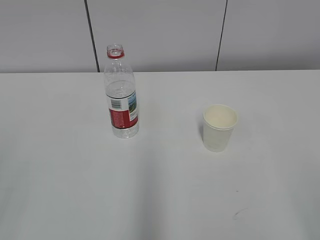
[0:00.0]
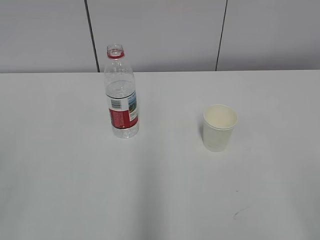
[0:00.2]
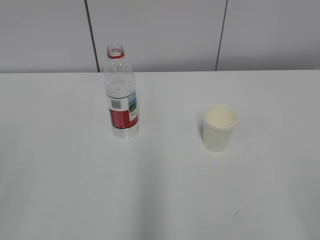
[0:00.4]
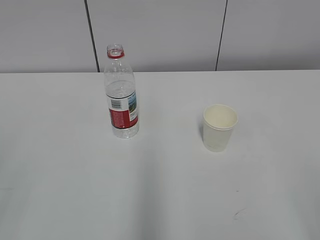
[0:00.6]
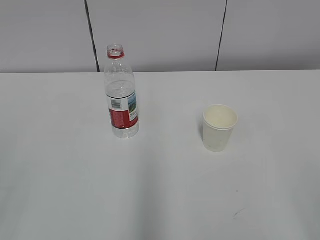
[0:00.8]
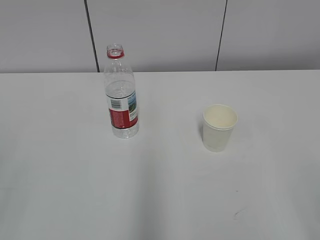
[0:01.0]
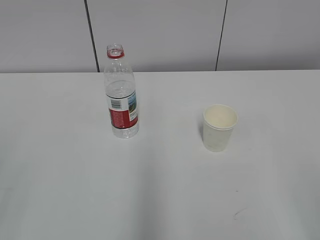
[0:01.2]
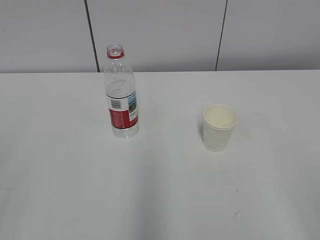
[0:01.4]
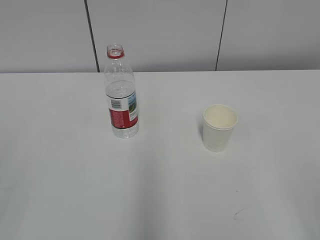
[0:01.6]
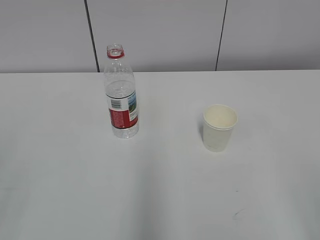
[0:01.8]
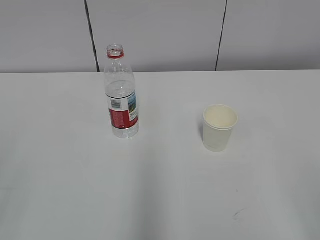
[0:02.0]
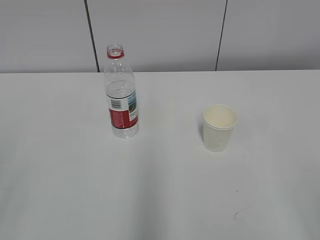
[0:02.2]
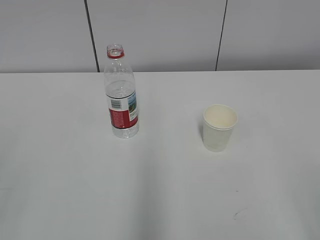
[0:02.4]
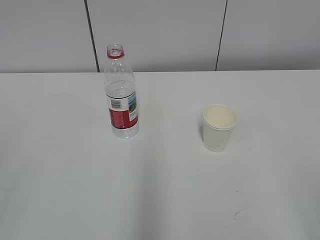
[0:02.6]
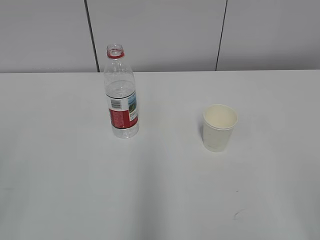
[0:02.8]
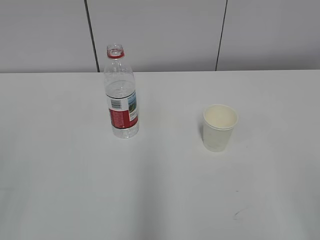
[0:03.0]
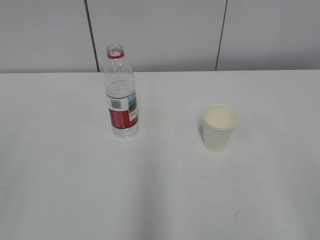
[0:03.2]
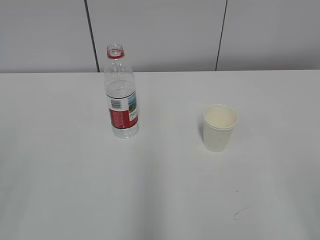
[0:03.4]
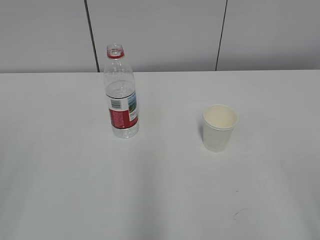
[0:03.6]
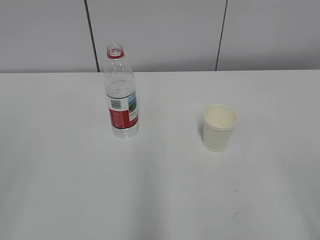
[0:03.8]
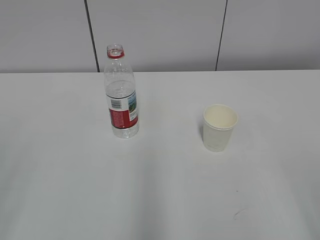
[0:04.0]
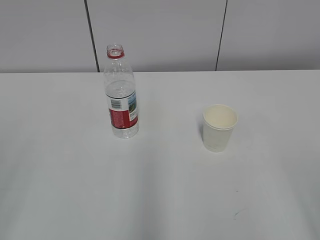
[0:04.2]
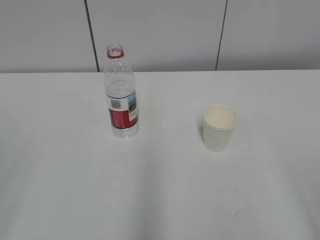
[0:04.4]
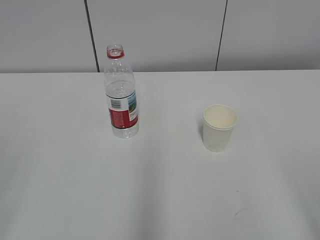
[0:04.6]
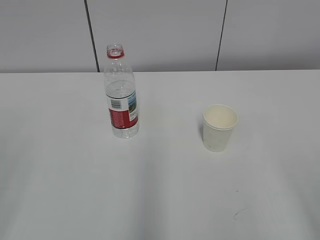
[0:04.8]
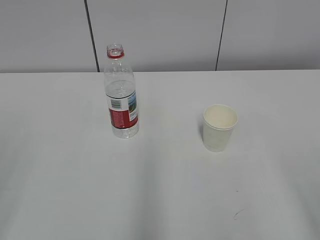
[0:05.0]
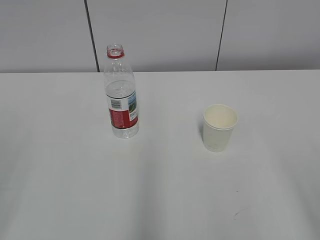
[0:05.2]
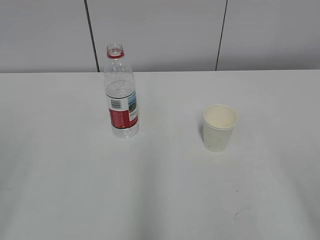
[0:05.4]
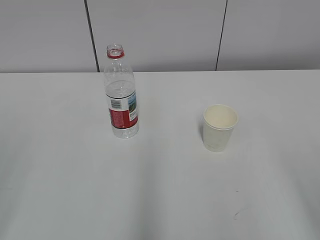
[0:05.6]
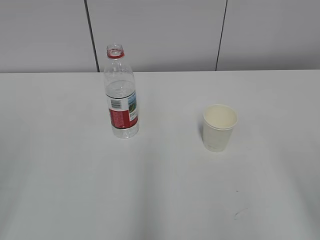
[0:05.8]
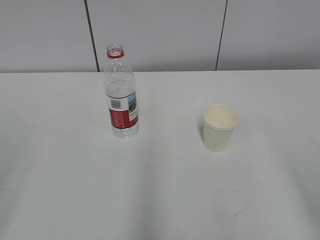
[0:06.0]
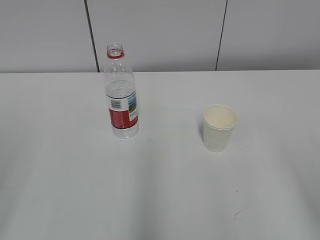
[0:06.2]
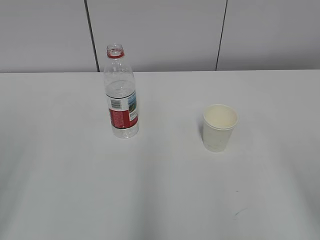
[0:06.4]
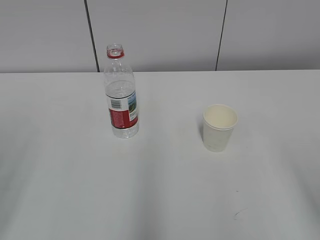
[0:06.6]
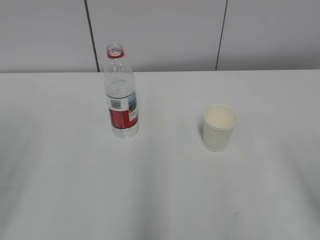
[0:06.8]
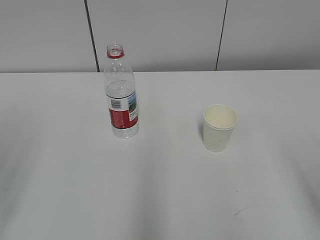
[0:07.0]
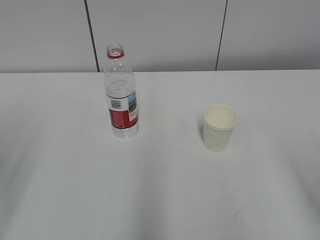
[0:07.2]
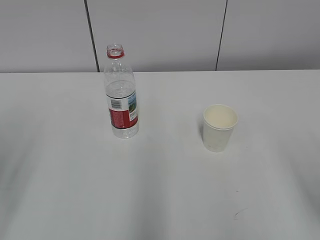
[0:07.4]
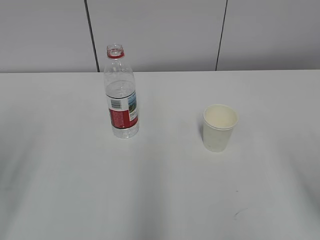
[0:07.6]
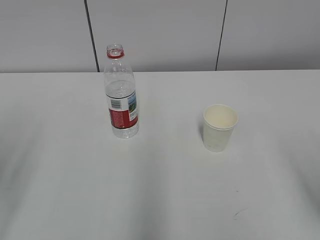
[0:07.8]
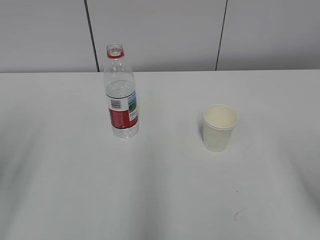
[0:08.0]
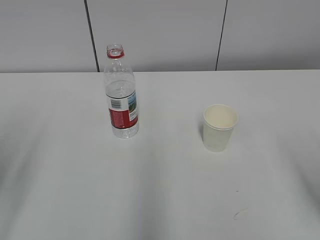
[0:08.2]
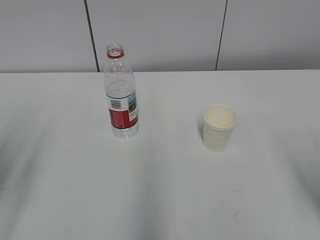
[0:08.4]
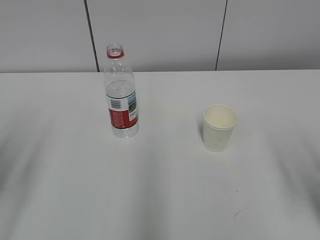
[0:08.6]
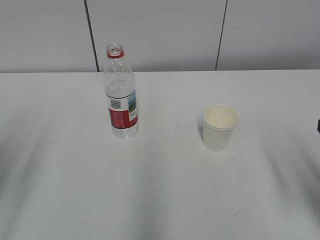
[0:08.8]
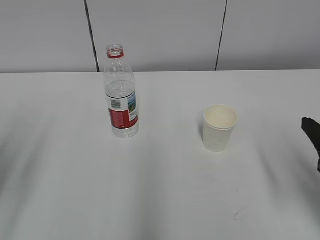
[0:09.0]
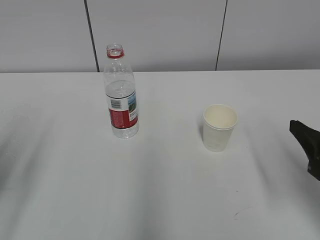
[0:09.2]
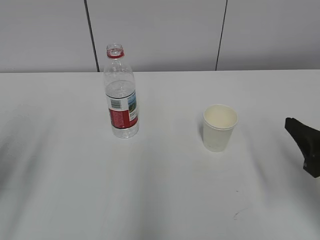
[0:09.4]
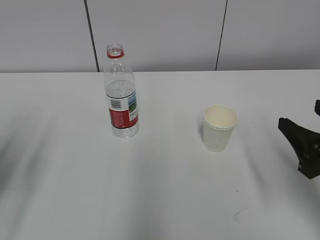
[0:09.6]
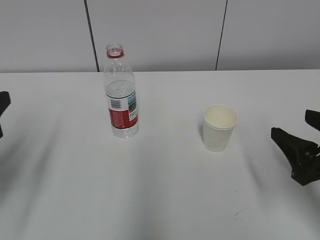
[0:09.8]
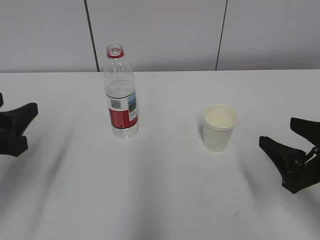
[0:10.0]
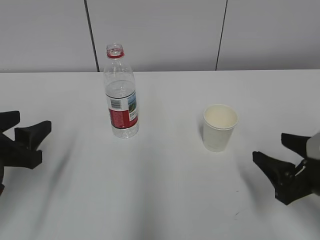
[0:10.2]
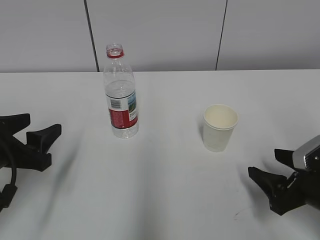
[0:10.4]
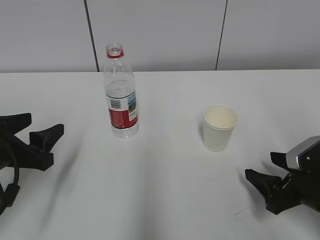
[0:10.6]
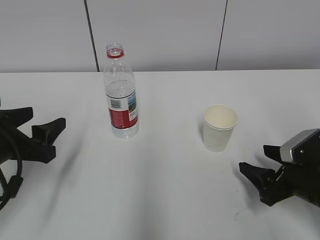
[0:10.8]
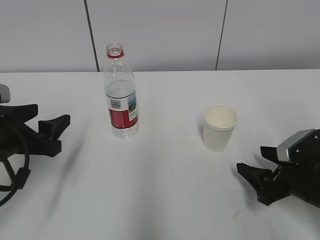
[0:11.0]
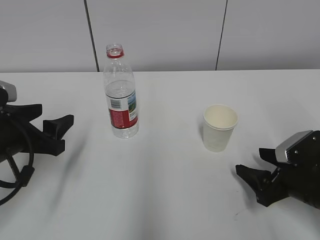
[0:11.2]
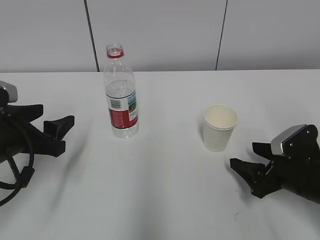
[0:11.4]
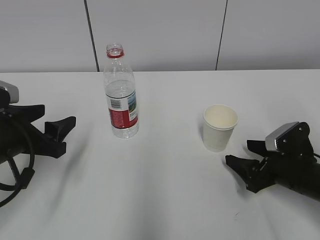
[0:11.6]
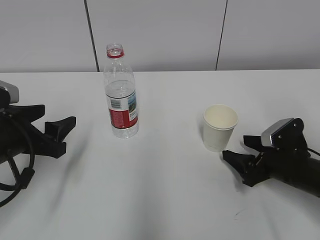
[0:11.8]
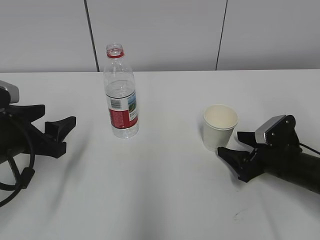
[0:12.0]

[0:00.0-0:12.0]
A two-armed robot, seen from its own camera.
Step, 0:00.0 to 0:11.2: Grab the paper cup with the right hand.
0:01.6 to 0:03.0: Neither gripper changes place.
0:07.6 to 0:09.0: The right gripper heads forward, covering some 5 cm.
0:09.0 to 0:10.4: The left gripper goes roughly 10 cm downward and forward, while the right gripper shifts some 10 cm downward.
0:10.4 to 0:12.0: The right gripper travels forward by about 10 cm.

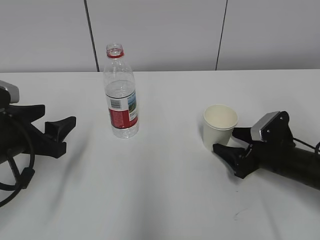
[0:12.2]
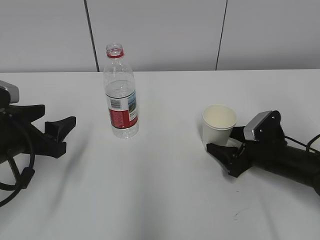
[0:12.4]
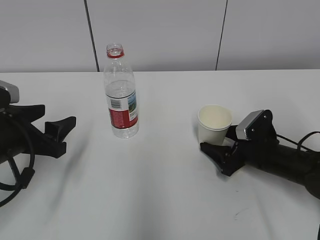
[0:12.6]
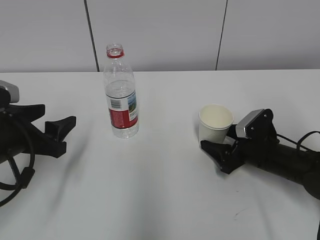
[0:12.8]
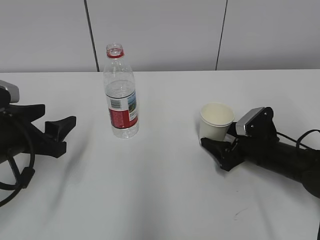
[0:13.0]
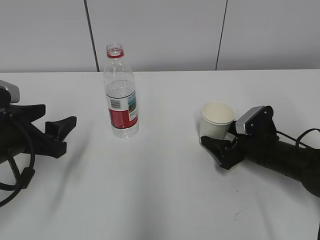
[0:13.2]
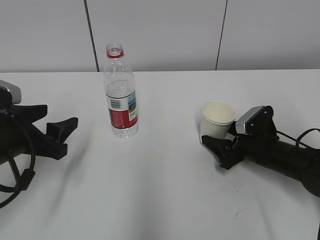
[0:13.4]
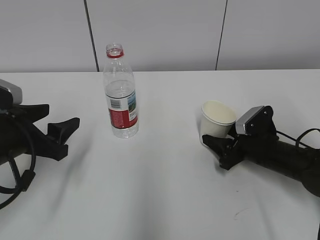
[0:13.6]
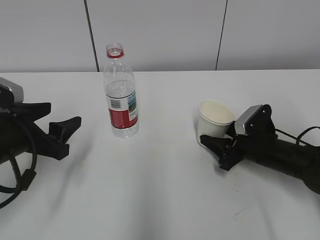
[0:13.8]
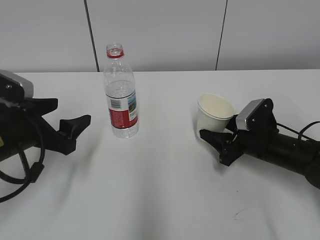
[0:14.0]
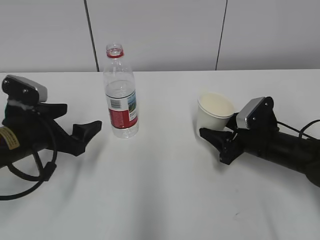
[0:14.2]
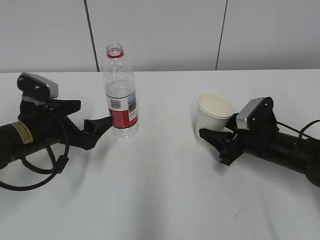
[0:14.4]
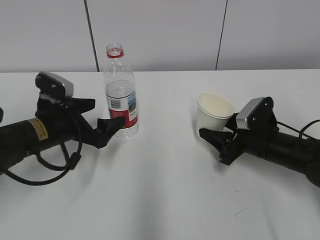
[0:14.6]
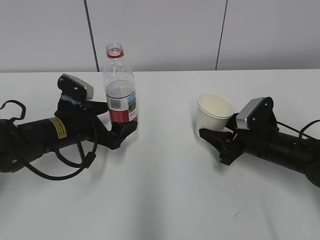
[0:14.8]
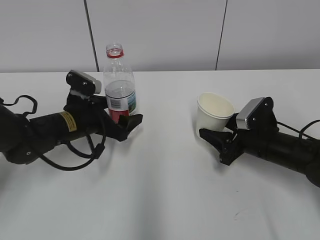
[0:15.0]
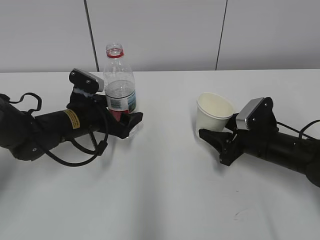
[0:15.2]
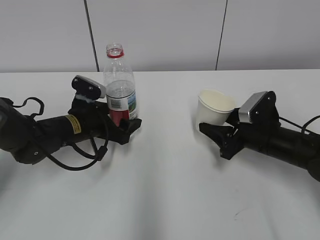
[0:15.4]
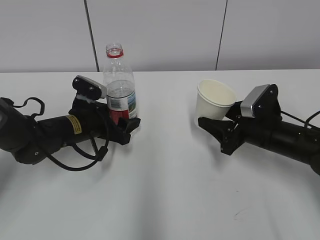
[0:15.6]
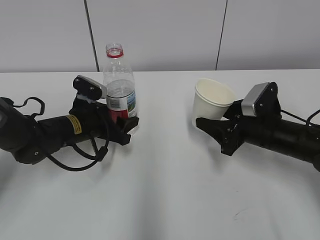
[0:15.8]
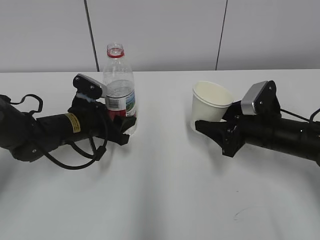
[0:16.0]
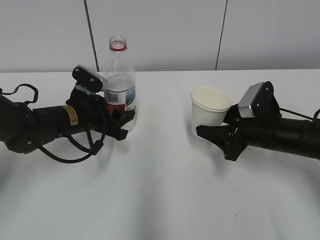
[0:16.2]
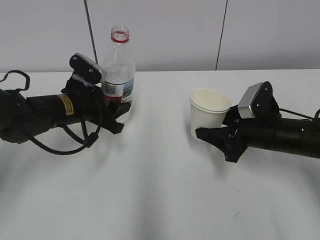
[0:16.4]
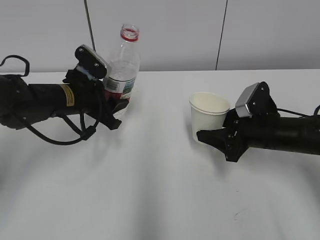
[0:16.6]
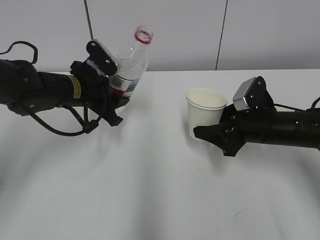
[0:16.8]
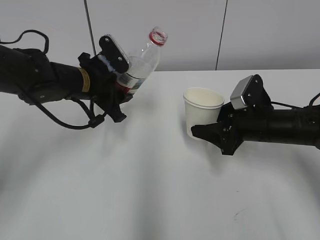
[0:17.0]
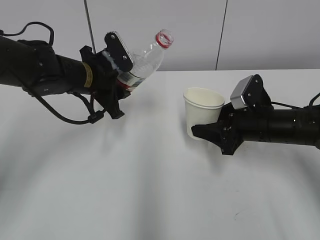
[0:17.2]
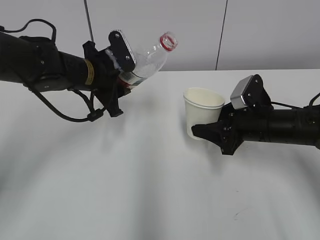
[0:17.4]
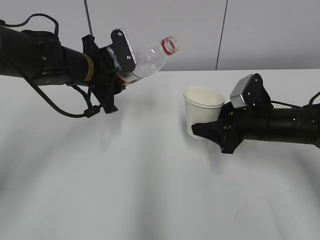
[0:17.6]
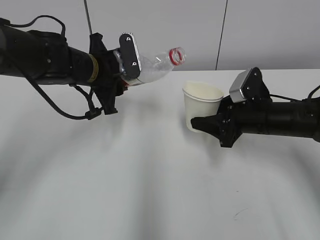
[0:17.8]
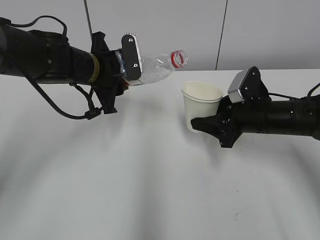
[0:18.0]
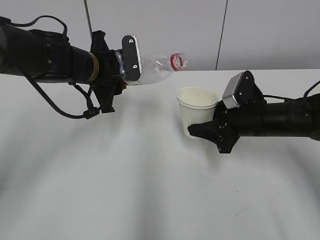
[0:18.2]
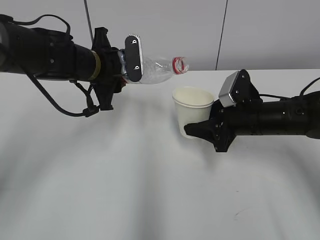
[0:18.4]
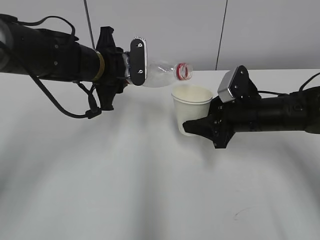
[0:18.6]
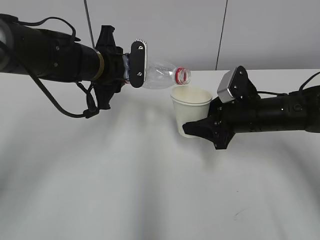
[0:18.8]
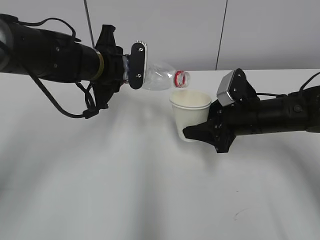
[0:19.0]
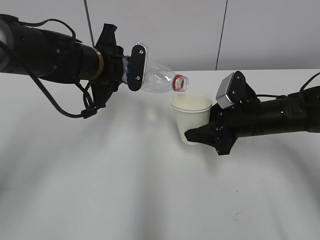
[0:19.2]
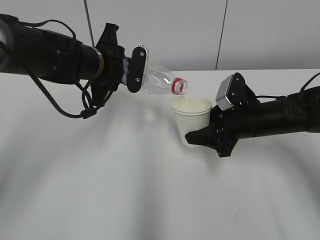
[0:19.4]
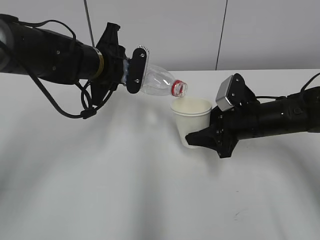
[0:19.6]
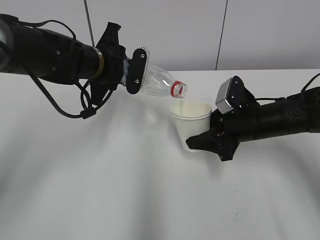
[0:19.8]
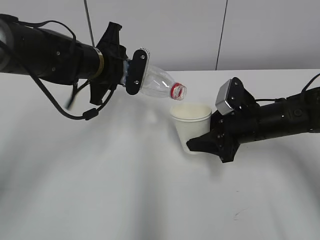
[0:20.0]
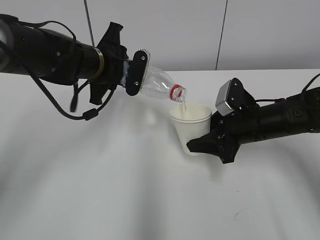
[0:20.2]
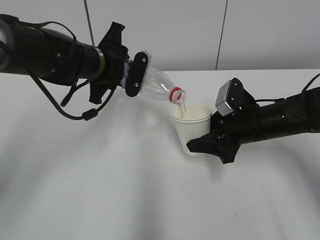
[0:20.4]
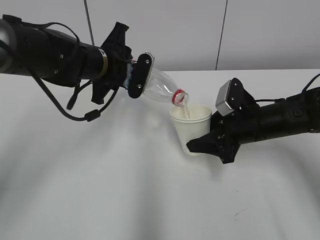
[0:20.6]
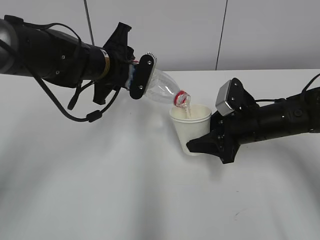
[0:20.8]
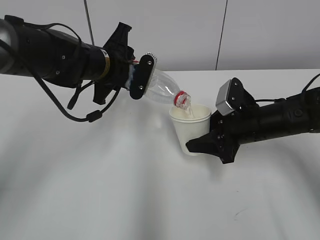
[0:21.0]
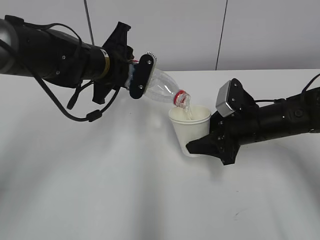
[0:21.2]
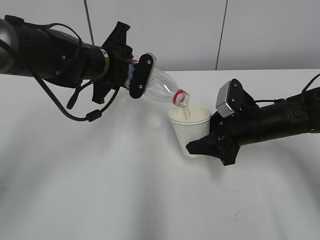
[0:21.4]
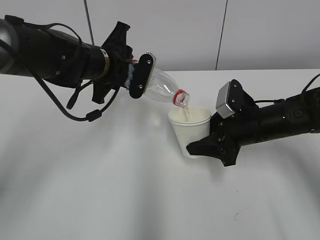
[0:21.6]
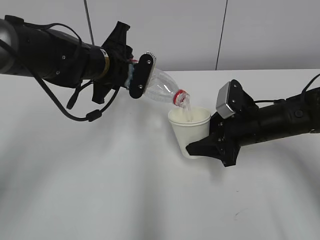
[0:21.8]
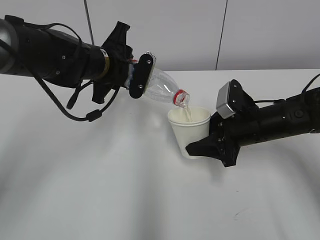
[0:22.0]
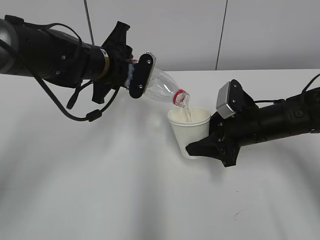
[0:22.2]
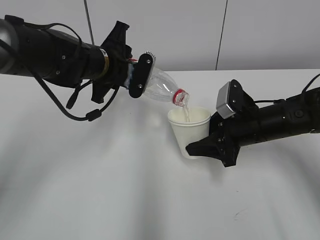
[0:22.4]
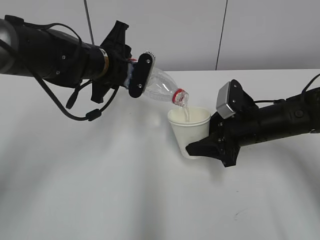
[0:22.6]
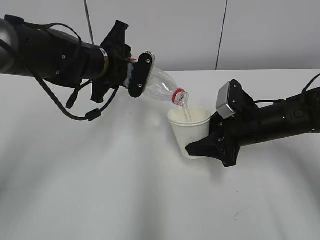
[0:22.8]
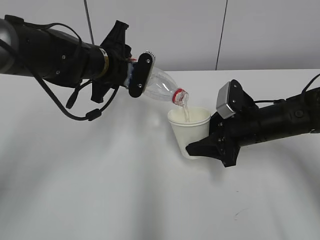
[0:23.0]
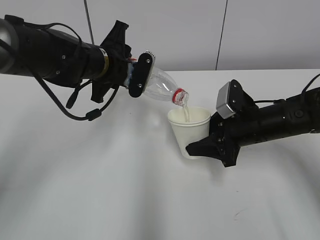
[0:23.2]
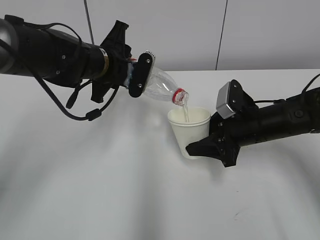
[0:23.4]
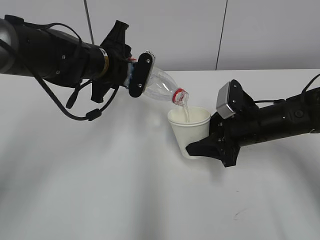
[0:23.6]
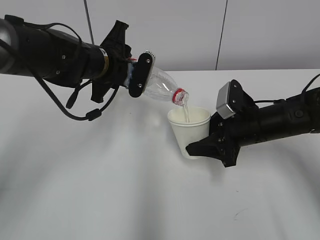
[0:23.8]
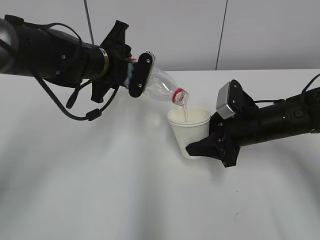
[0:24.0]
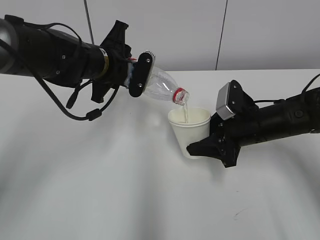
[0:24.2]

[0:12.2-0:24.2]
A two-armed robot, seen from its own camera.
Step, 0:13.4 to 0:16.2: Lift the paper cup with the right hand.
Step, 0:16.4 to 0:20.4: Fill water with the right hand.
Step, 0:16.4 to 0:20.4: Pour water with the left hand.
Step, 0:20.6 to 0:21.4: Collect water with the left hand.
0:12.2 to 0:13.8: The right gripper closes its fingers.
0:13.8 to 0:15.2: The left gripper is displaced forward, to the right and downward by about 15 cm, and opens.
0:15.2 to 0:16.6: The left gripper heads upward, covering about 5 cm, and closes.
0:16.6 to 0:18.2: The left gripper moves upward, about 5 cm.
0:19.8 to 0:21.2: The grippers make only small movements.
0:21.2 to 0:24.2: Both grippers stay about where they are.
